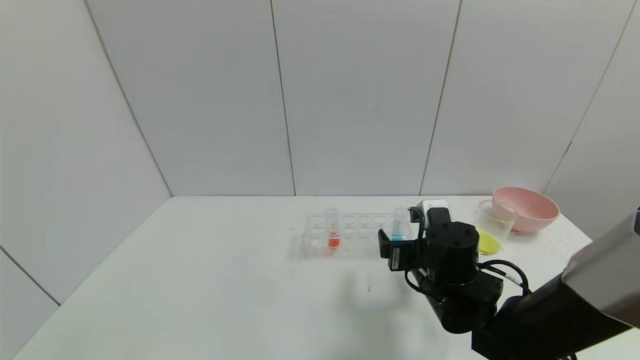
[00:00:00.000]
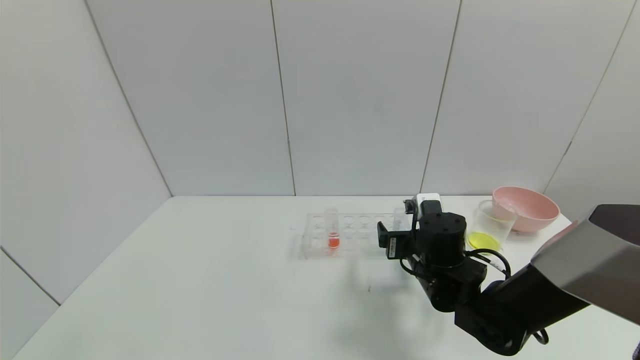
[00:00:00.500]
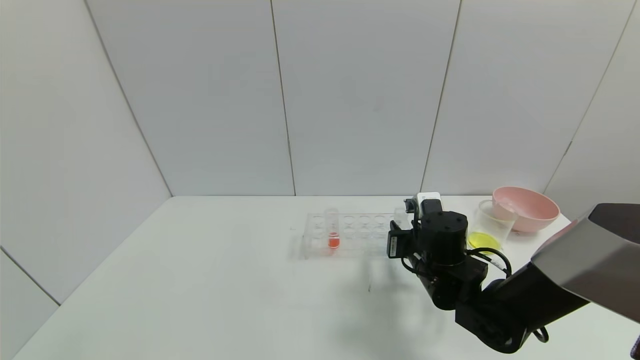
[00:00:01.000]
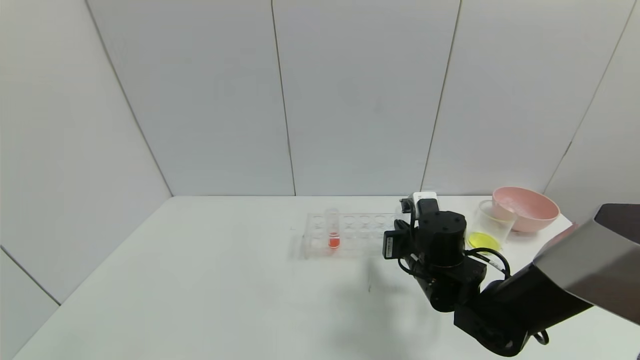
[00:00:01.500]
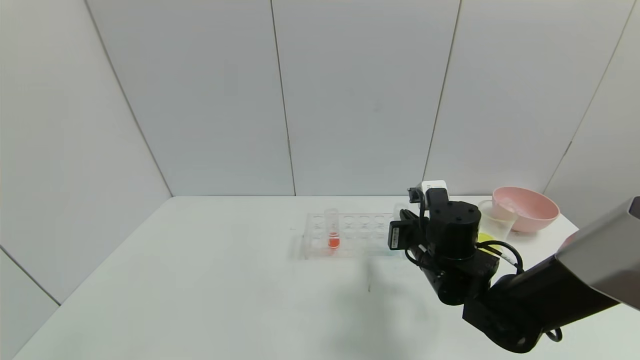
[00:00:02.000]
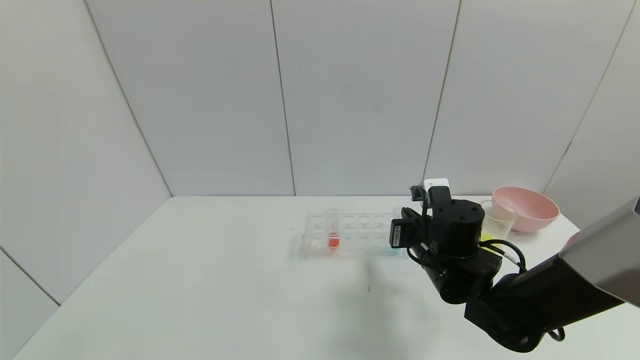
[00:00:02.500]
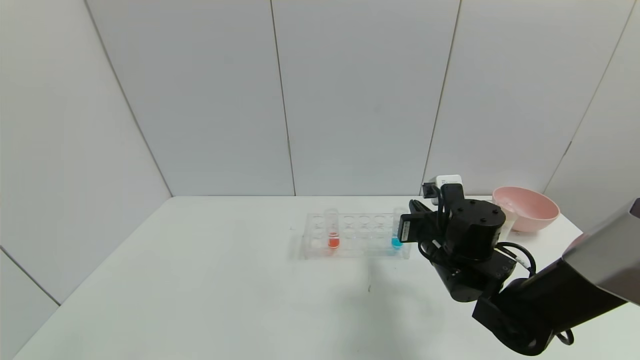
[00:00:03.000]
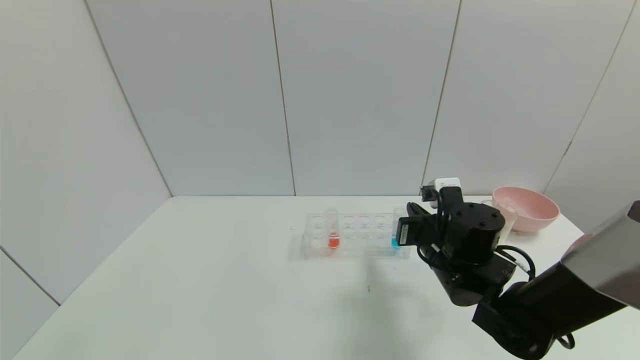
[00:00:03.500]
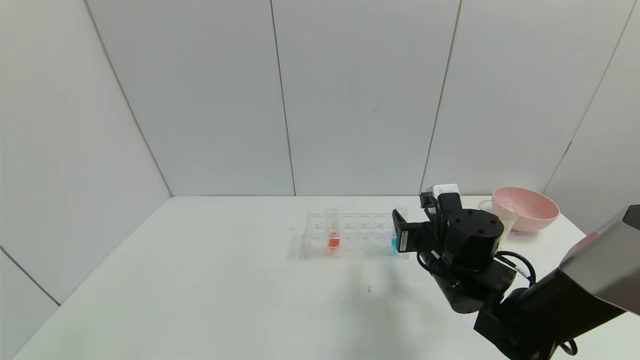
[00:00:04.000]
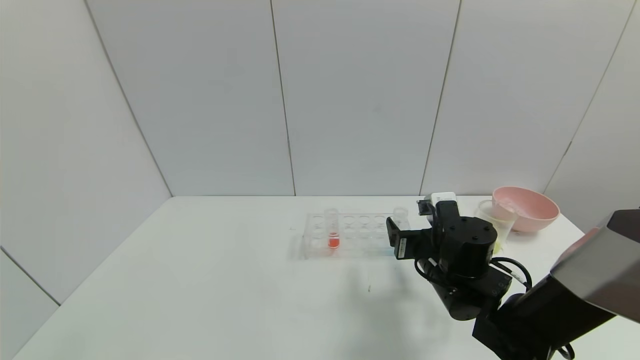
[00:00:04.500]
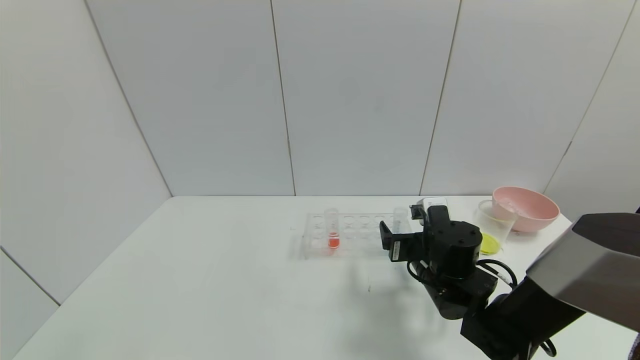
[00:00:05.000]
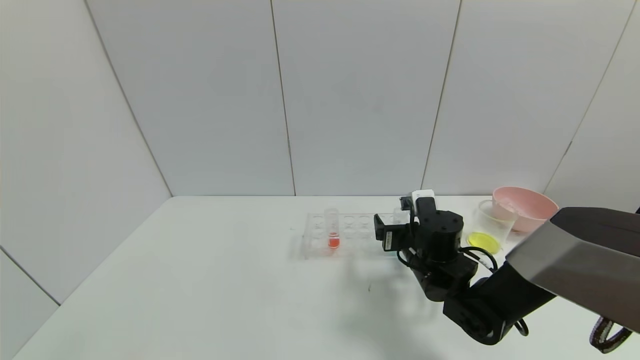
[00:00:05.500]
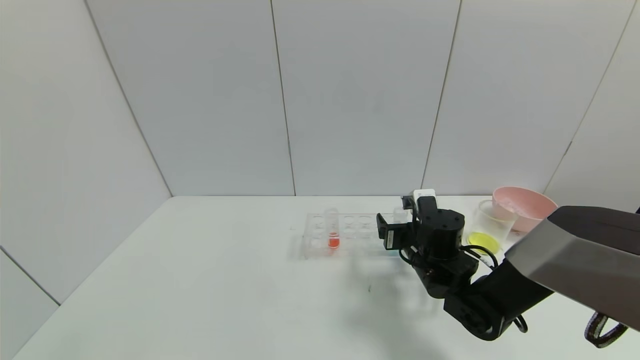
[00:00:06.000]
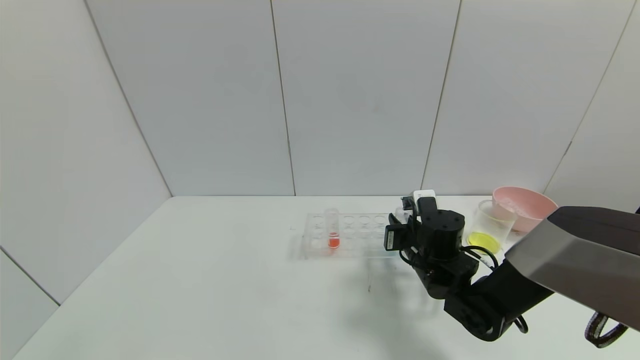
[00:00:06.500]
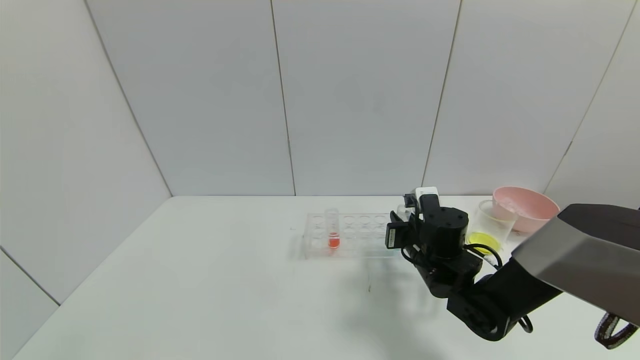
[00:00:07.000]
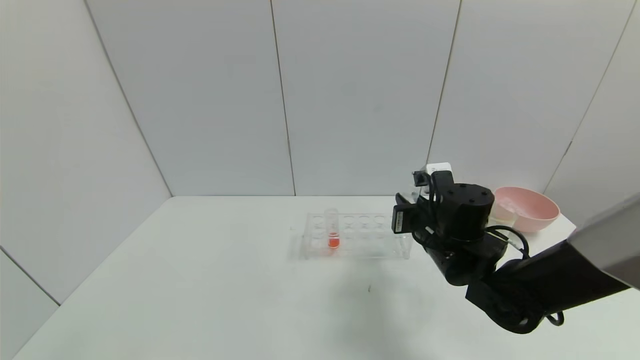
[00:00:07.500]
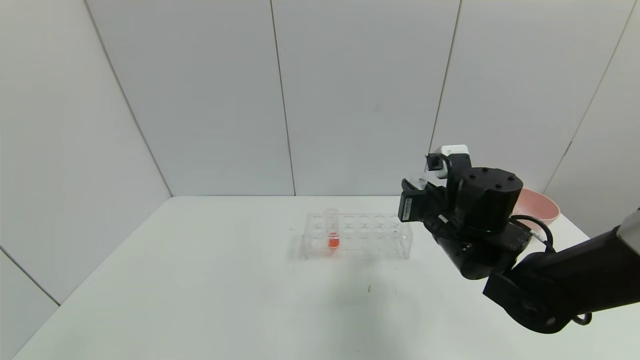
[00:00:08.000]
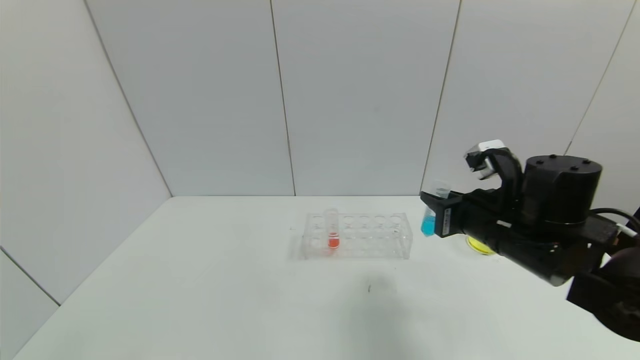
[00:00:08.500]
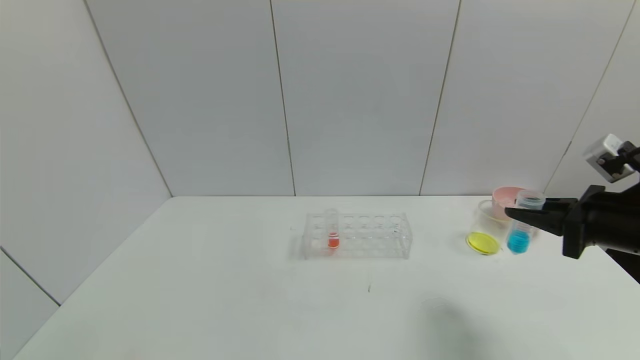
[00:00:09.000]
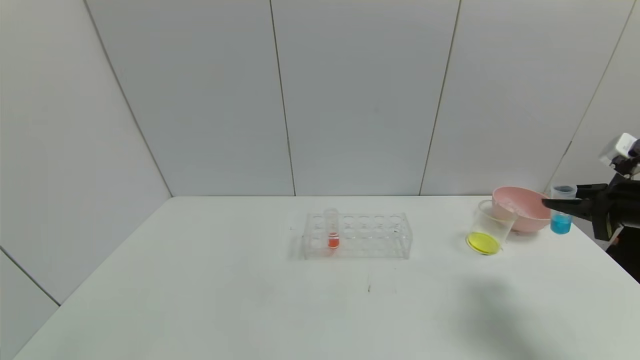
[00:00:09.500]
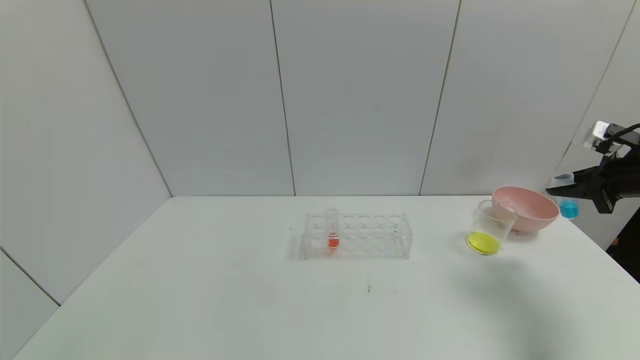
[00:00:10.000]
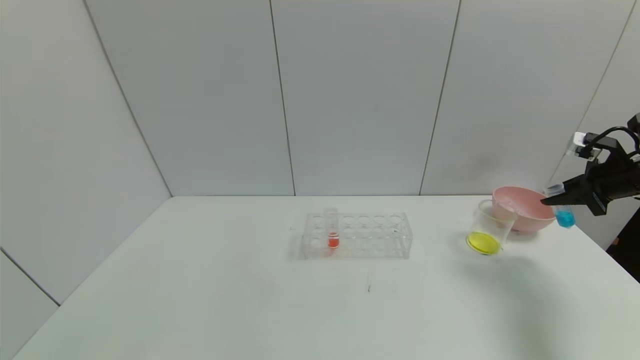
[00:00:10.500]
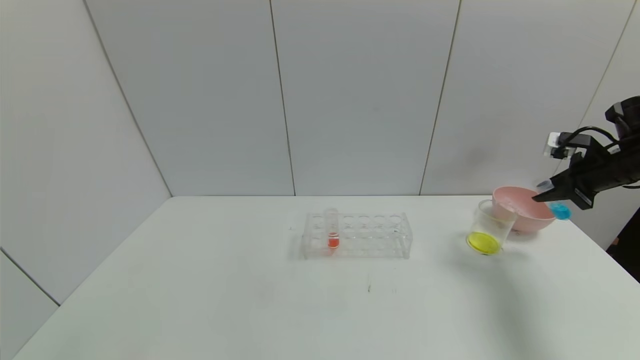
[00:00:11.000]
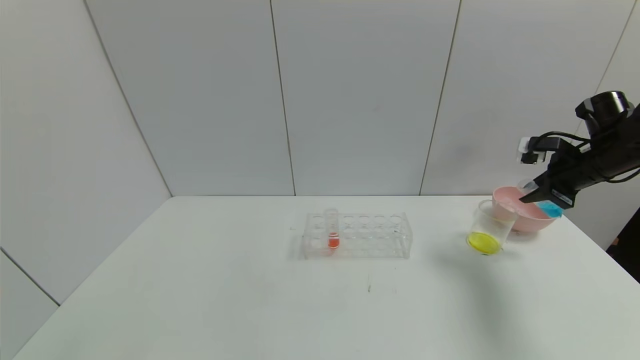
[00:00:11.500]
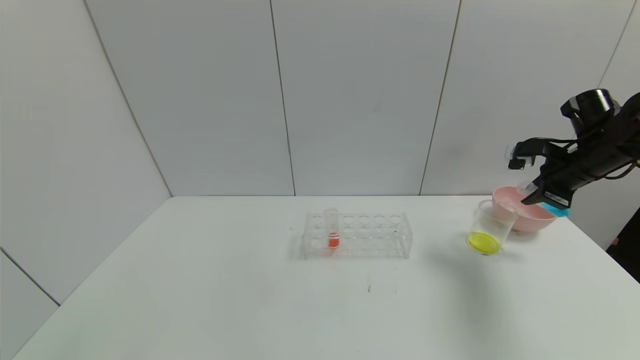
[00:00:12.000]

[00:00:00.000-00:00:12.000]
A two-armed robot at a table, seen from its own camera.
Task of the whole recording: pick up the test tube with yellow pigment and the test tube with blue pigment by grippers and pour them into the beaker.
Step, 00:00:00.000 to 00:00:06.500: Grasp the blue reagent with the right gripper.
00:00:00.000 to 00:00:02.000: The right gripper closes.
00:00:02.000 to 00:00:04.000: The right gripper opens.
00:00:04.000 to 00:00:06.000: The right gripper ends up about 5 cm from where it was.
00:00:06.000 to 00:00:08.000: The right gripper is displaced upward by approximately 10 cm, and closes.
00:00:08.000 to 00:00:10.000: The right gripper moves to the right, about 30 cm.
00:00:10.000 to 00:00:12.000: The right gripper moves to the left and forward, approximately 10 cm.

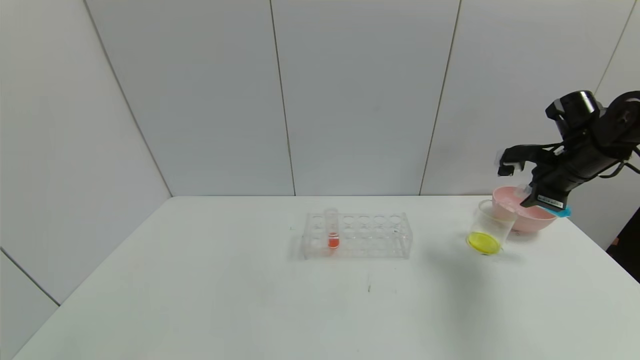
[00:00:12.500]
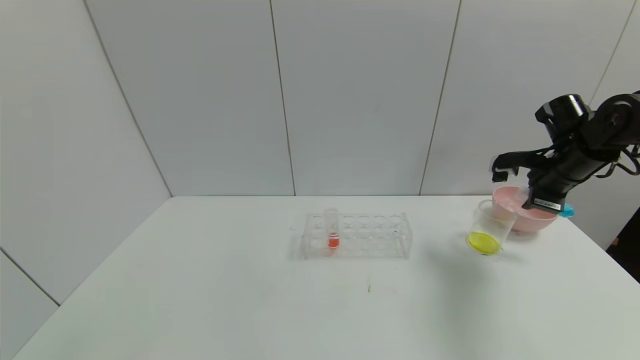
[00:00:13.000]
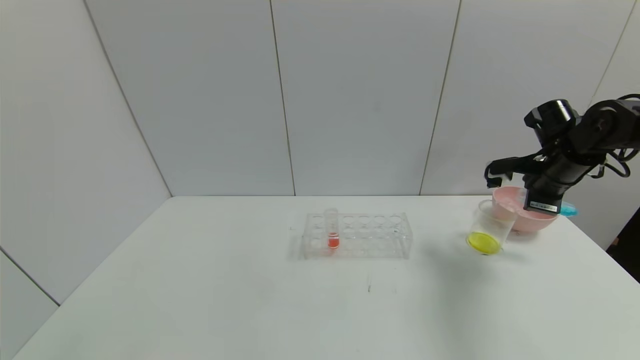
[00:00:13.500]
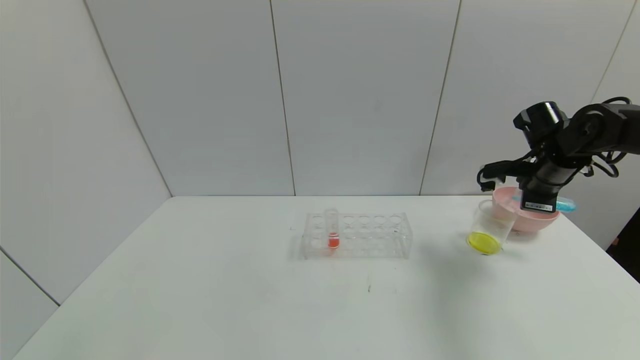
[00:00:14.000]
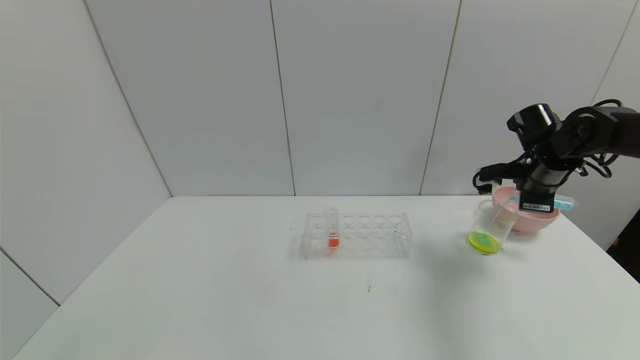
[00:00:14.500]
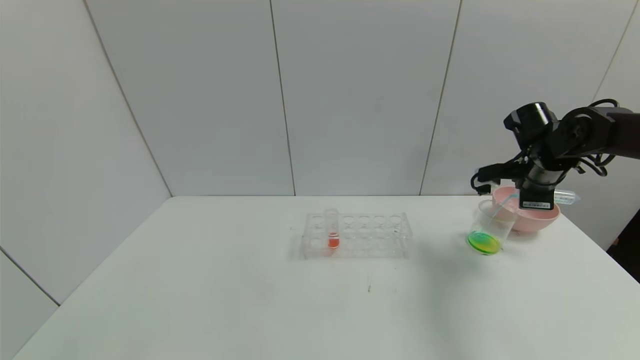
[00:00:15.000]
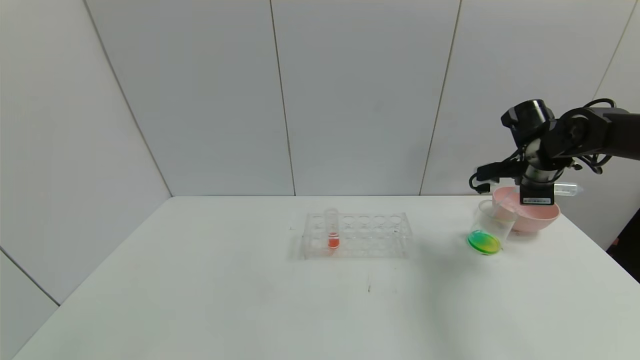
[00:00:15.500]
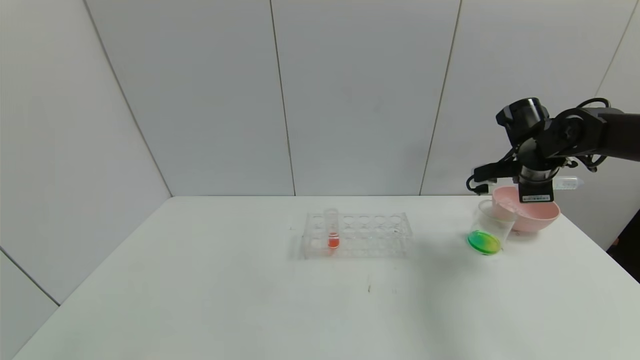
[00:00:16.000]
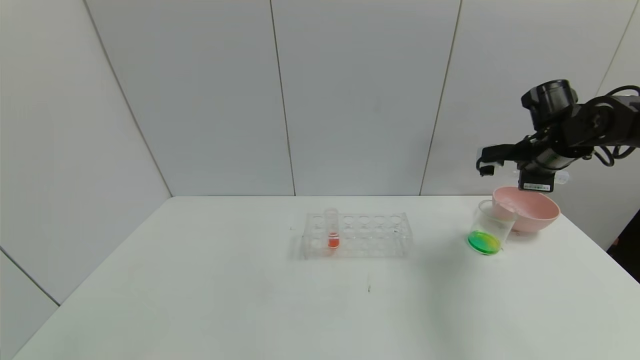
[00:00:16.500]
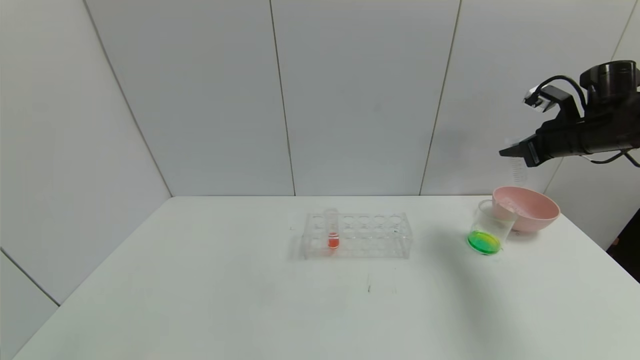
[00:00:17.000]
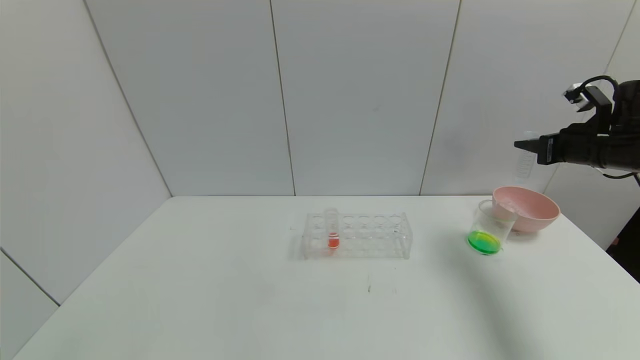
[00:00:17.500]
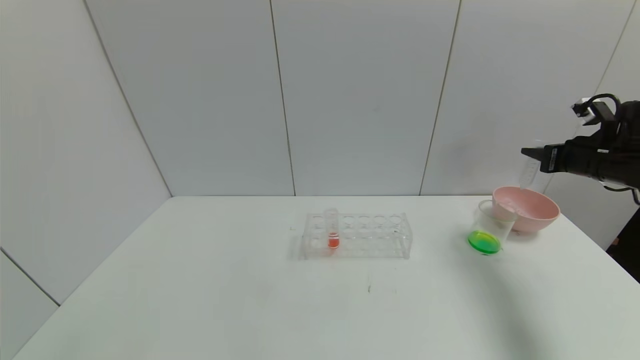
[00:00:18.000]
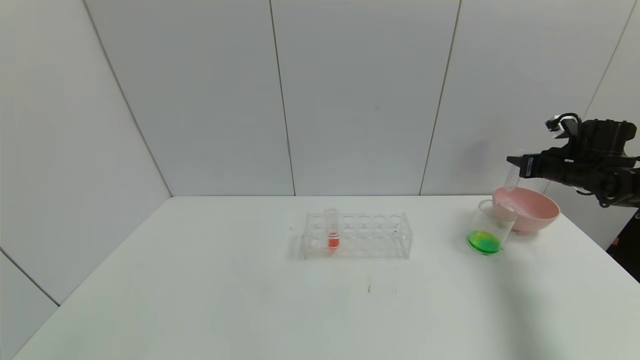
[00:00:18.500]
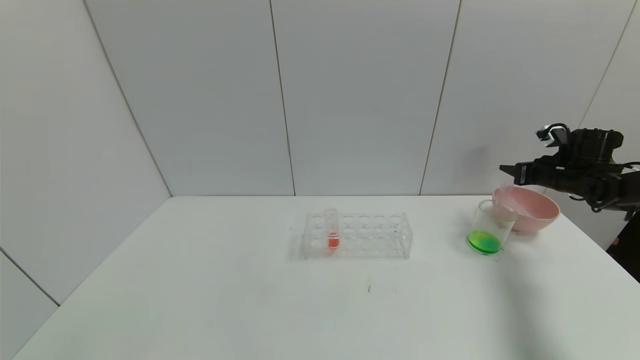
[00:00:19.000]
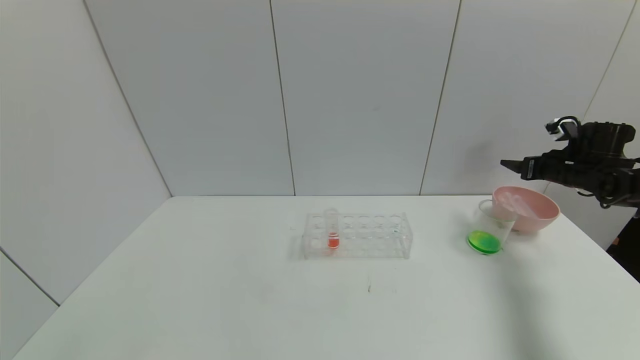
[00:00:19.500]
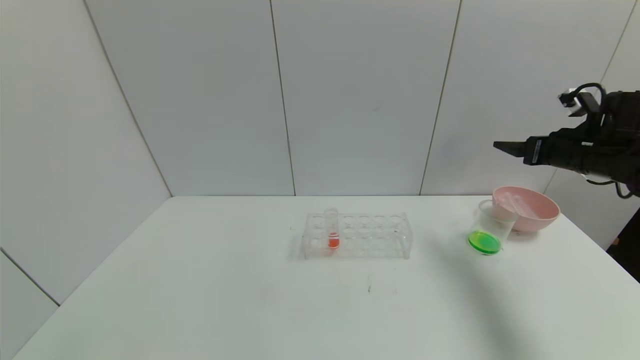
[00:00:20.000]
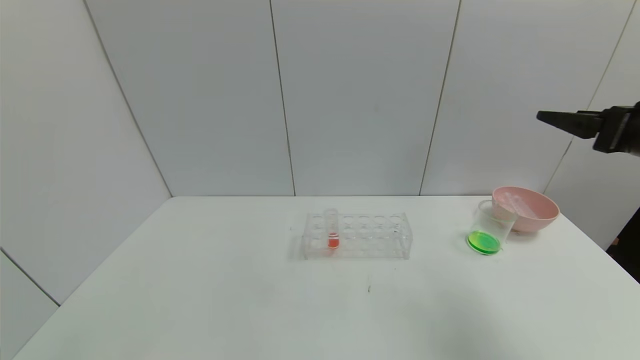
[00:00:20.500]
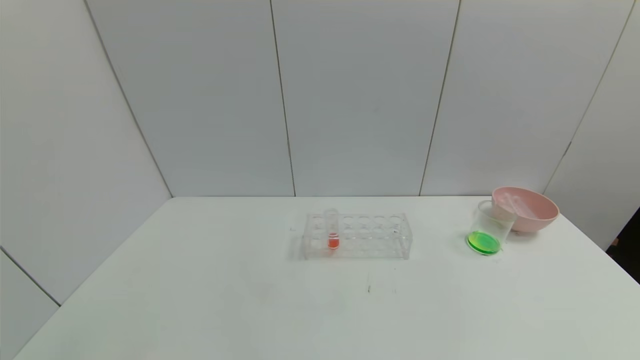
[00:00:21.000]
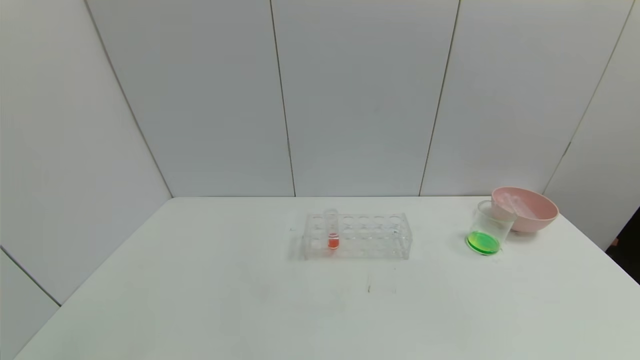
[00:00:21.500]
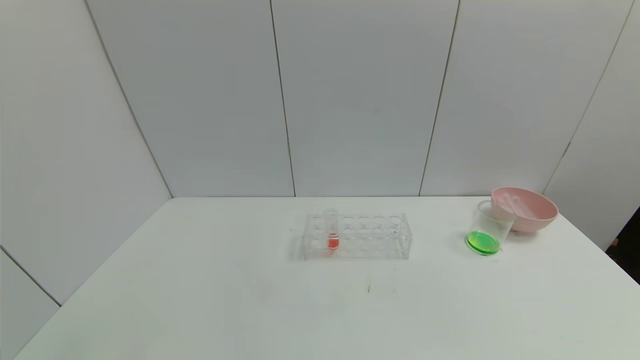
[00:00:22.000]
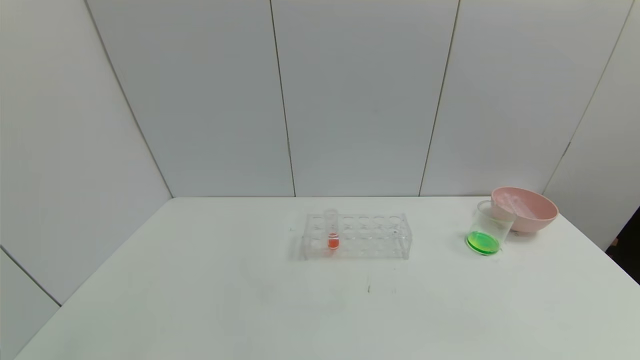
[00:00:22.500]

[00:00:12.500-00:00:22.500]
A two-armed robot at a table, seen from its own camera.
Task of the whole recording: pick up the test tube with yellow pigment and the test tube with blue pigment by grippers and pour them into the beaker.
Step, 00:00:12.500 to 00:00:16.000: Pour the blue reagent into the graduated cylinder with the right gripper.
Step, 00:00:16.500 to 00:00:19.000: Place the test tube into the bowl with the right gripper.
00:00:14.500 to 00:00:16.500: The grippers move only a little.
00:00:16.500 to 00:00:18.500: The right gripper heads to the right and downward, covering roughly 15 cm.
00:00:18.500 to 00:00:20.500: The right gripper shifts some 25 cm backward, upward and to the left, and opens up.
00:00:20.500 to 00:00:22.500: The right gripper heads backward, covering approximately 35 cm.
